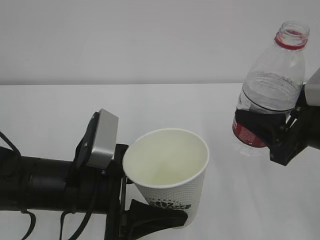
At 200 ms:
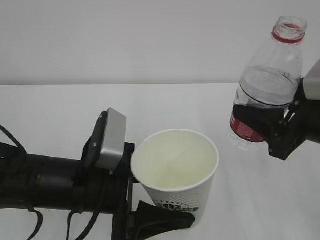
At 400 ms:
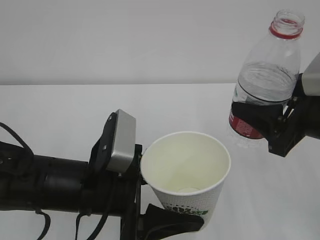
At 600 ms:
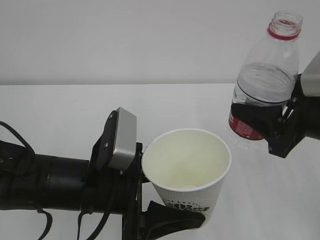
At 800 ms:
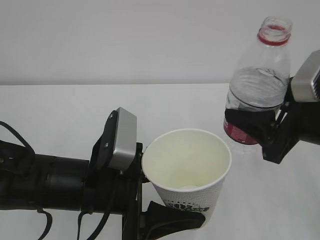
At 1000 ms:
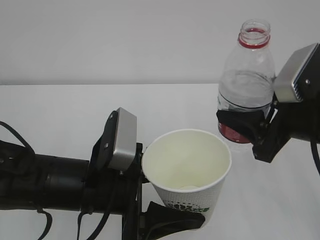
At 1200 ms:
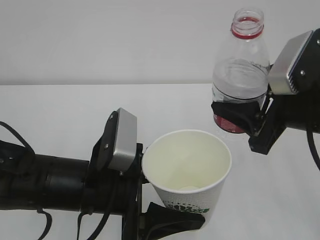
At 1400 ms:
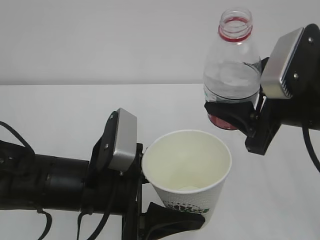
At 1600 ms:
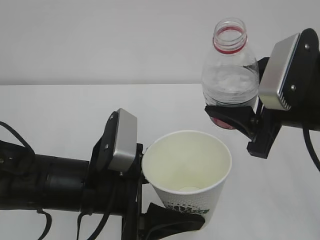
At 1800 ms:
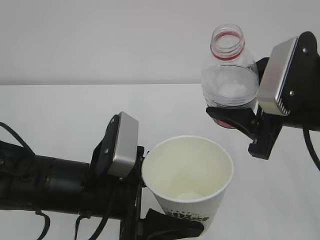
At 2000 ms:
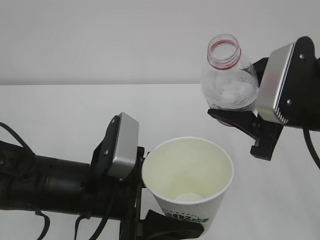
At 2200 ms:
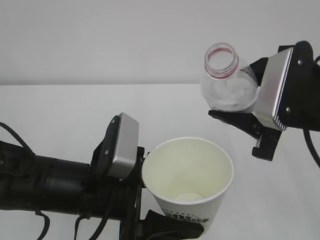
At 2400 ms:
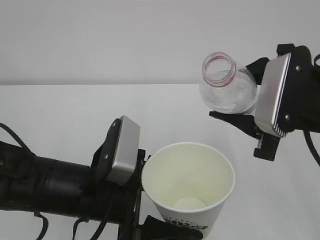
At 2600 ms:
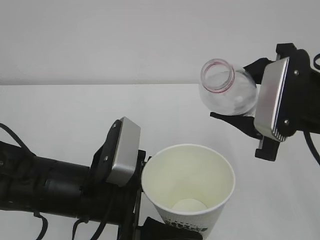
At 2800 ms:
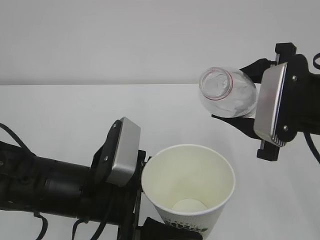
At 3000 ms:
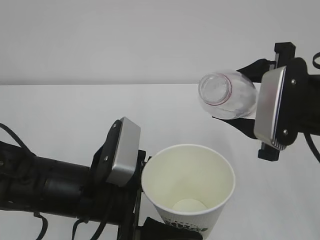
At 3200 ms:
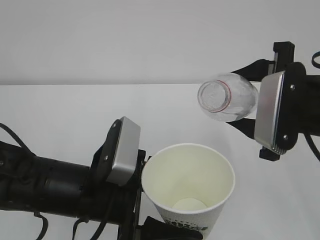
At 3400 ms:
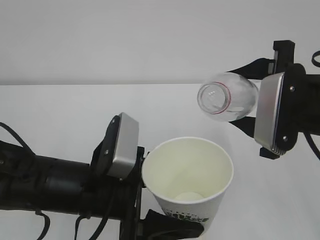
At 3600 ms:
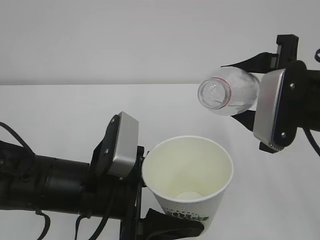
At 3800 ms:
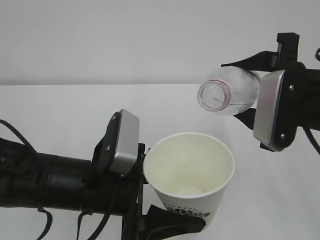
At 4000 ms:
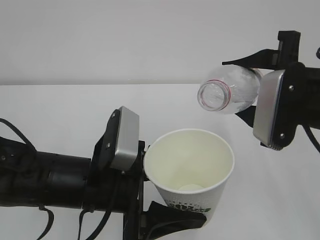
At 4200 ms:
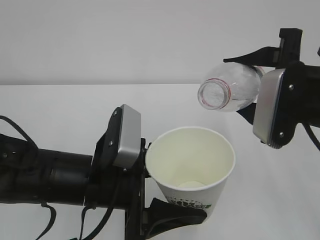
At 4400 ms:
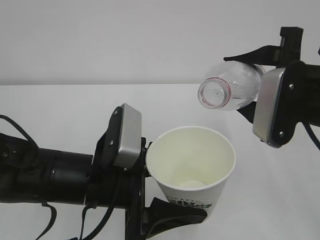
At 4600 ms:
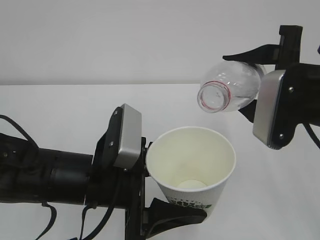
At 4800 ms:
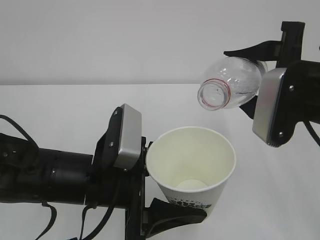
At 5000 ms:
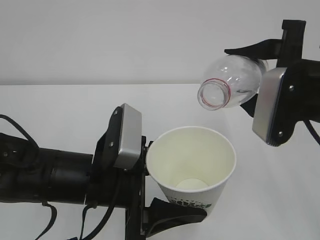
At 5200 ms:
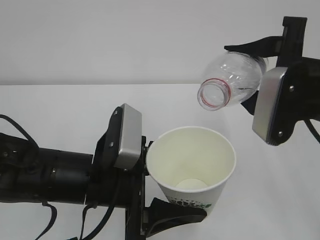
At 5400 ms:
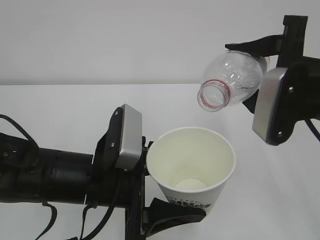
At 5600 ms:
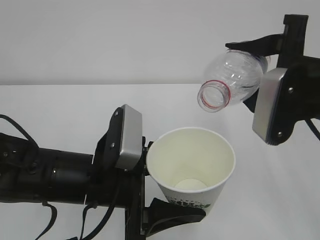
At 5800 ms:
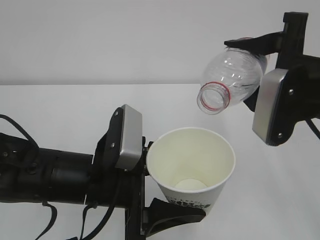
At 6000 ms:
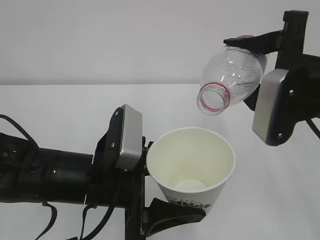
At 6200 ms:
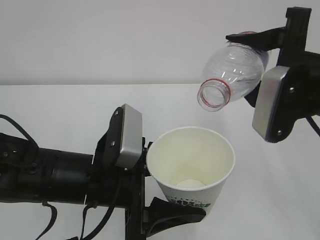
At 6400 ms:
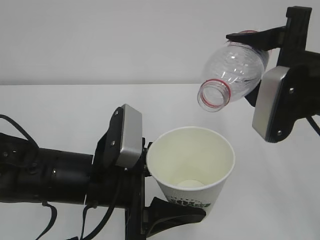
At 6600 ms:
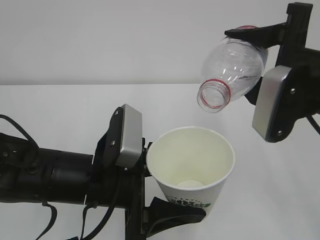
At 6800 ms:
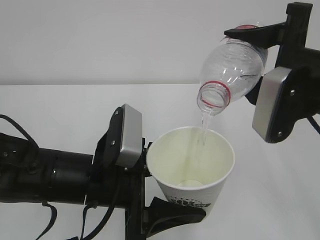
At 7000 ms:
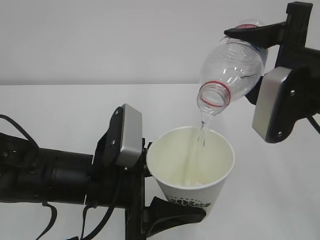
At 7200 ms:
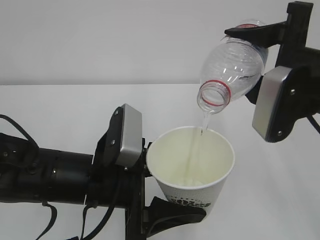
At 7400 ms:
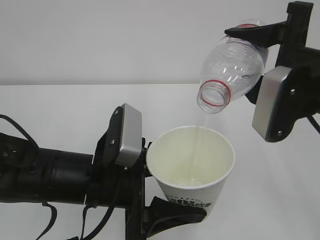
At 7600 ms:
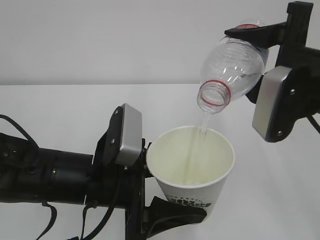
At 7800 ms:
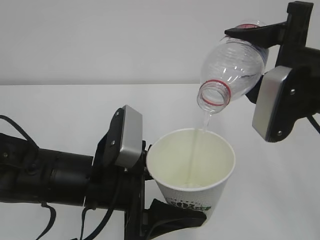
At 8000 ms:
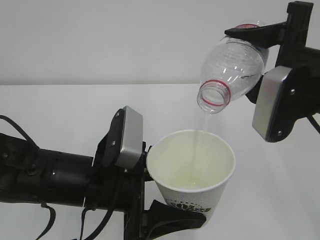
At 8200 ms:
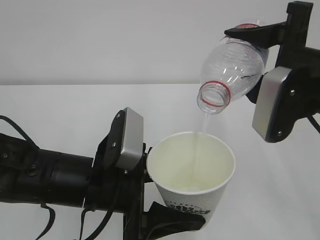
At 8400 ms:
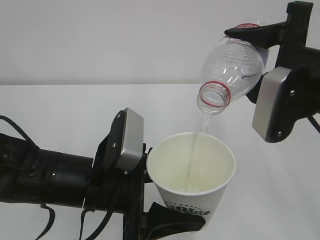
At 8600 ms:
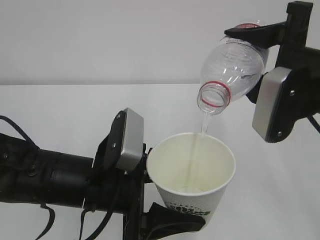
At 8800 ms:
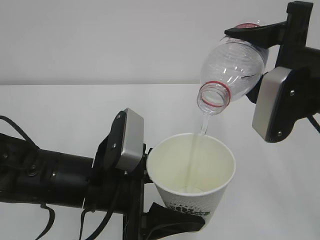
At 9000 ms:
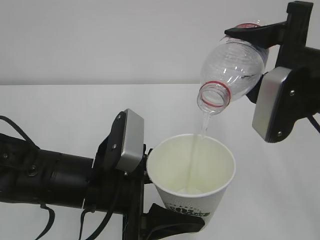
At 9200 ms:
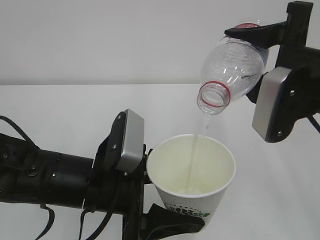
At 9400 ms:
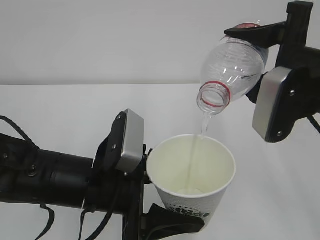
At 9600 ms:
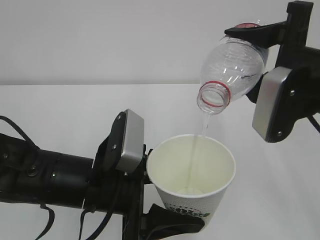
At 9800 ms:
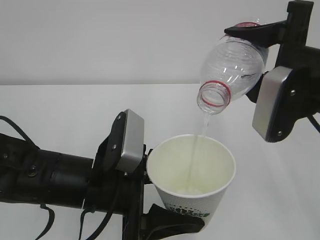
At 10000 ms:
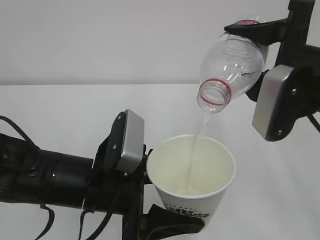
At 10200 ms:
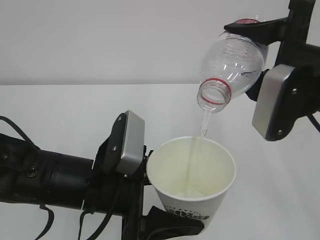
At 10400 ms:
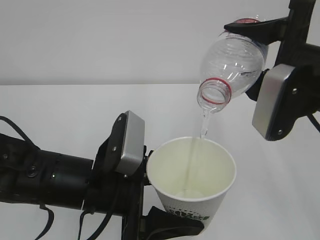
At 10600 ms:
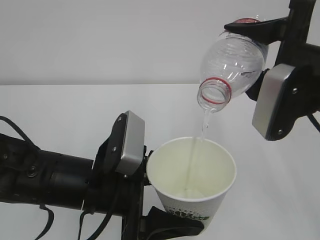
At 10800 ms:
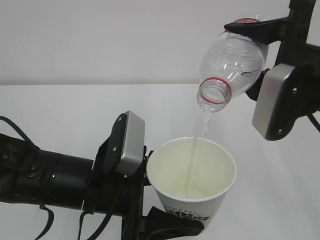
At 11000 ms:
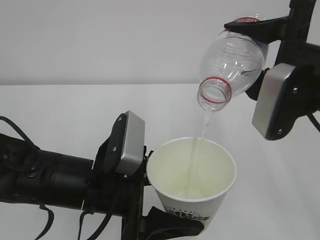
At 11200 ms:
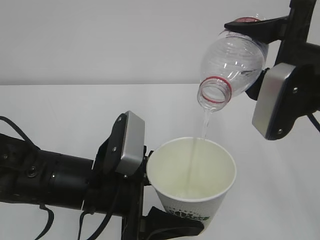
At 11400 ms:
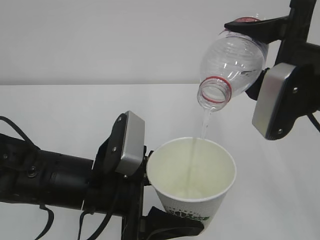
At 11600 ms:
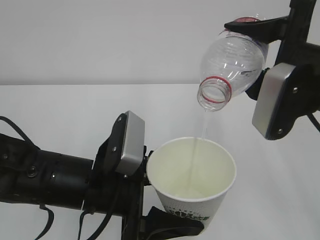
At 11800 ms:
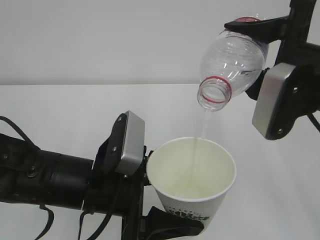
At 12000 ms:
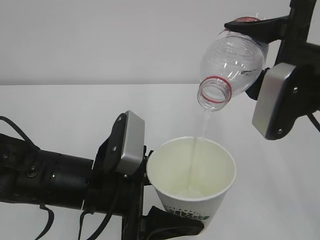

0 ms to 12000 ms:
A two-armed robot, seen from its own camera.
0 ms to 1600 ms: The right gripper changes place by approximately 5 cm.
3000 ms to 4400 ms: The grippers move only a little.
4400 ms to 6000 ms: There are only small adjustments of the grippers.
6000 ms to 7600 ms: Both grippers stay put.
7600 ms to 12000 ms: Both grippers stay put.

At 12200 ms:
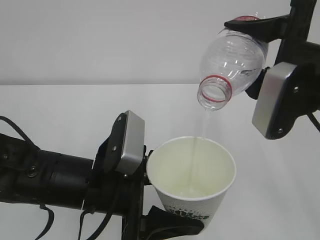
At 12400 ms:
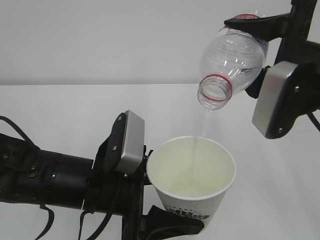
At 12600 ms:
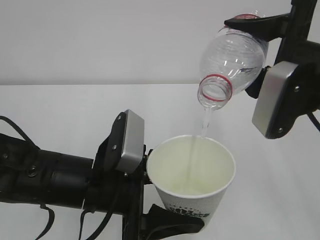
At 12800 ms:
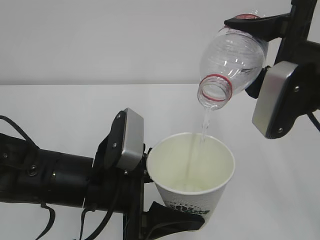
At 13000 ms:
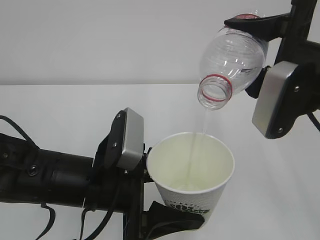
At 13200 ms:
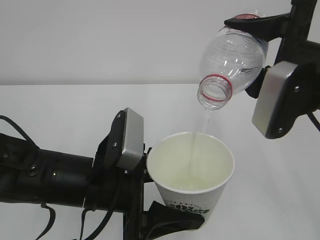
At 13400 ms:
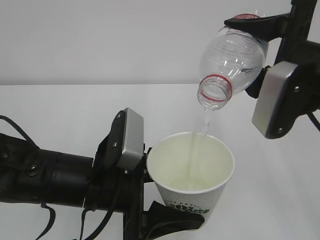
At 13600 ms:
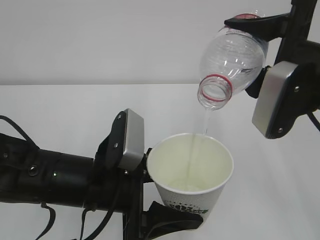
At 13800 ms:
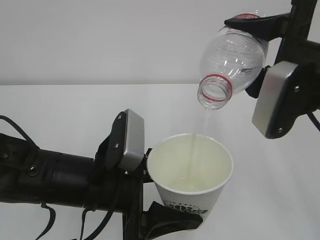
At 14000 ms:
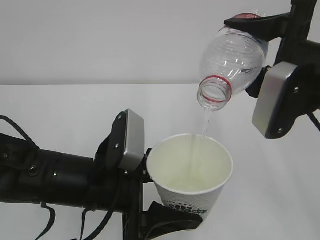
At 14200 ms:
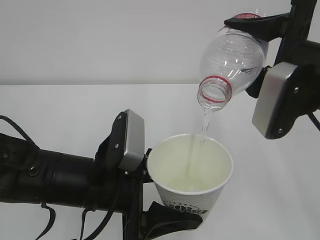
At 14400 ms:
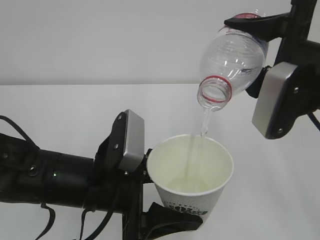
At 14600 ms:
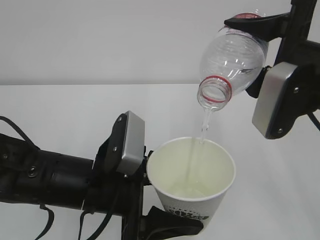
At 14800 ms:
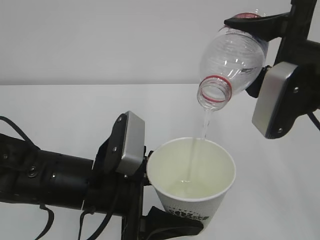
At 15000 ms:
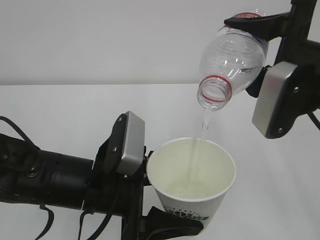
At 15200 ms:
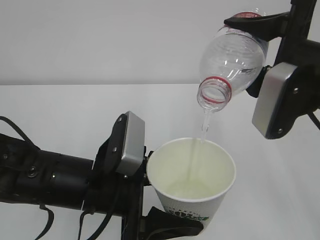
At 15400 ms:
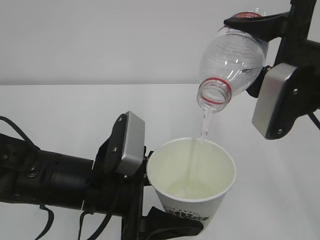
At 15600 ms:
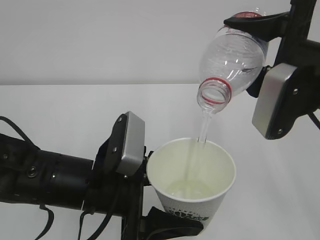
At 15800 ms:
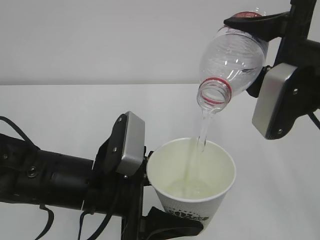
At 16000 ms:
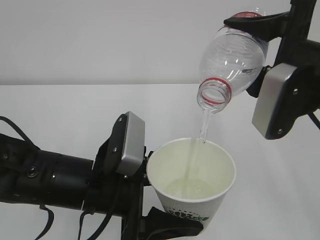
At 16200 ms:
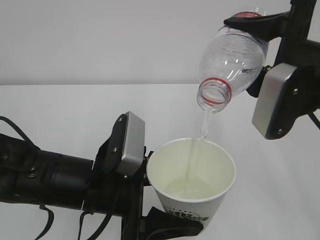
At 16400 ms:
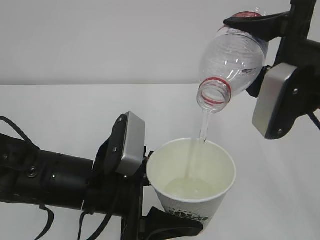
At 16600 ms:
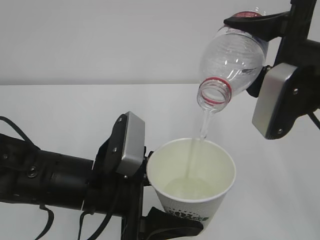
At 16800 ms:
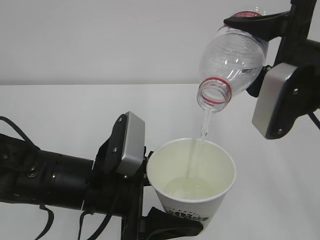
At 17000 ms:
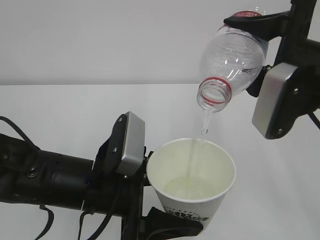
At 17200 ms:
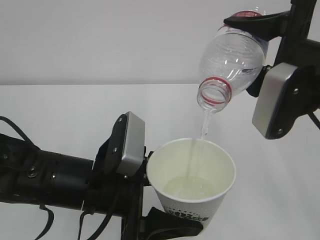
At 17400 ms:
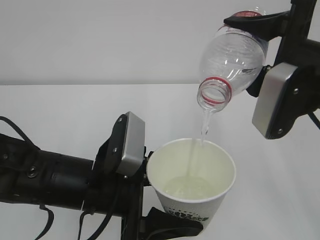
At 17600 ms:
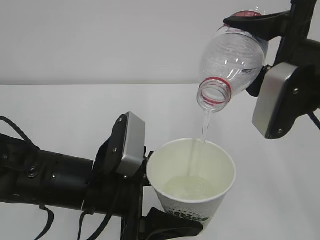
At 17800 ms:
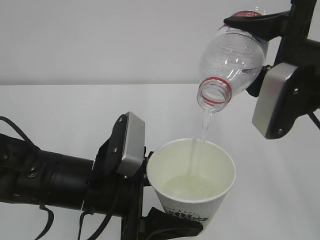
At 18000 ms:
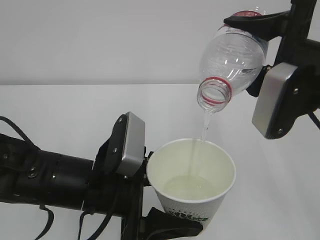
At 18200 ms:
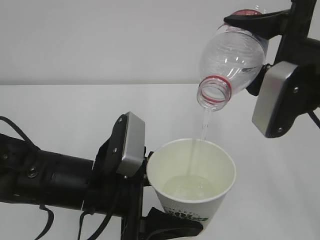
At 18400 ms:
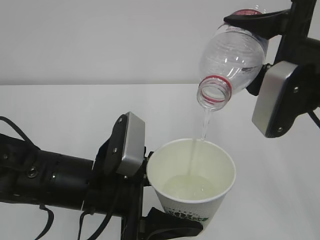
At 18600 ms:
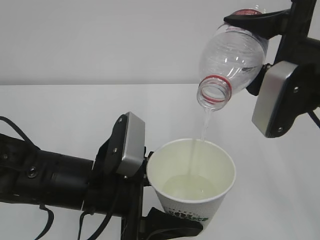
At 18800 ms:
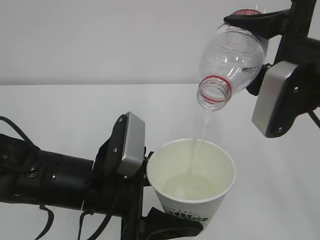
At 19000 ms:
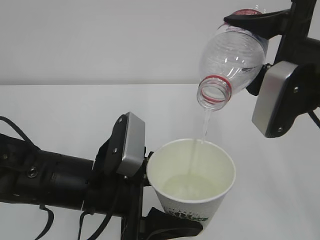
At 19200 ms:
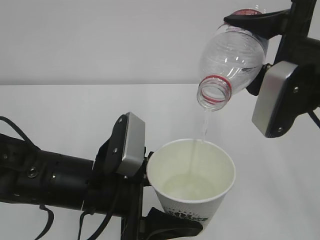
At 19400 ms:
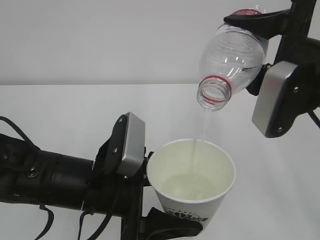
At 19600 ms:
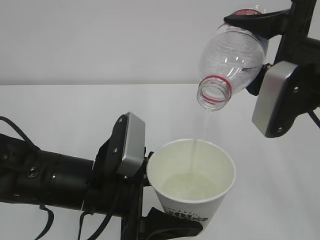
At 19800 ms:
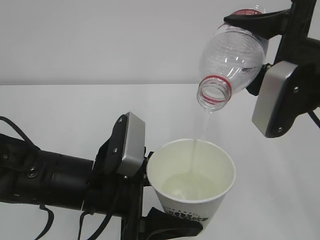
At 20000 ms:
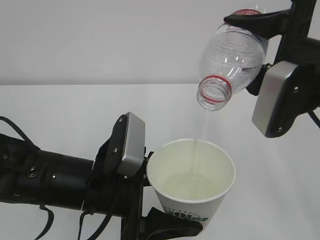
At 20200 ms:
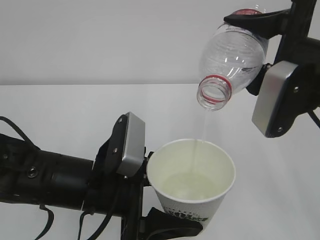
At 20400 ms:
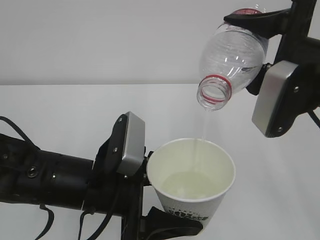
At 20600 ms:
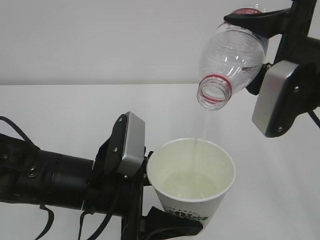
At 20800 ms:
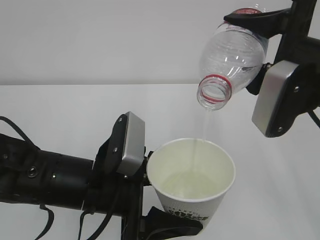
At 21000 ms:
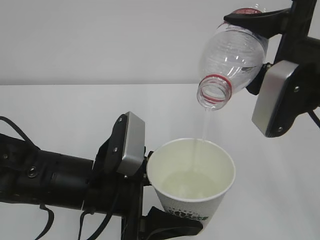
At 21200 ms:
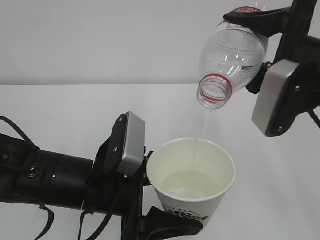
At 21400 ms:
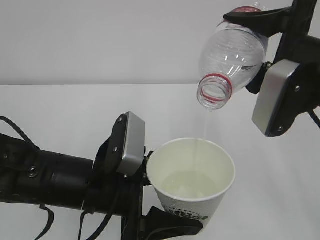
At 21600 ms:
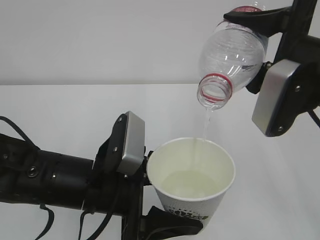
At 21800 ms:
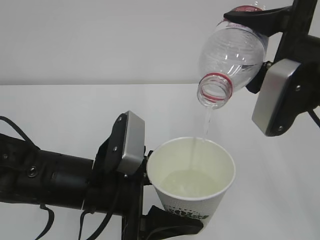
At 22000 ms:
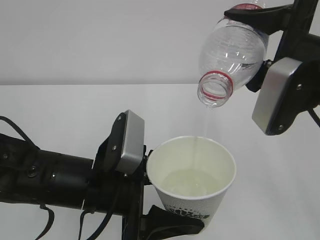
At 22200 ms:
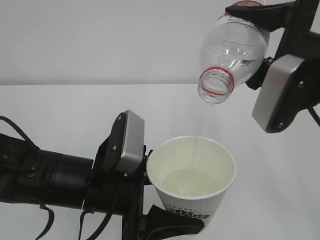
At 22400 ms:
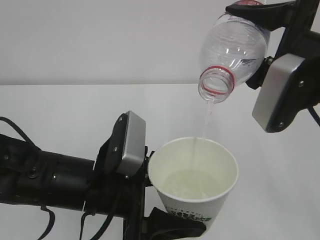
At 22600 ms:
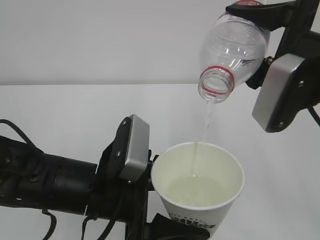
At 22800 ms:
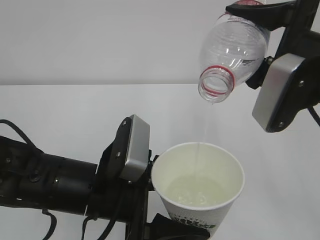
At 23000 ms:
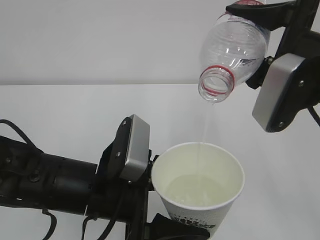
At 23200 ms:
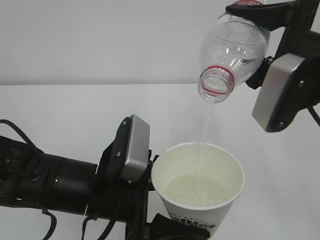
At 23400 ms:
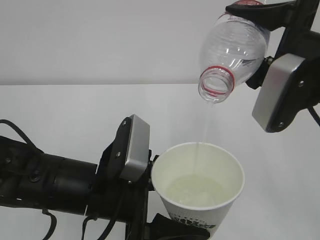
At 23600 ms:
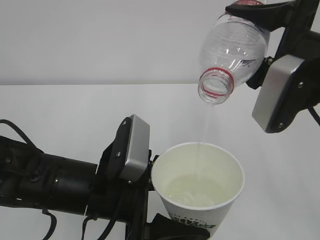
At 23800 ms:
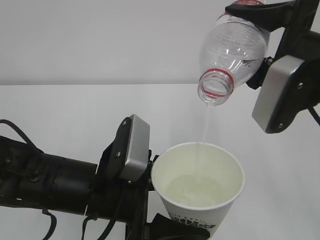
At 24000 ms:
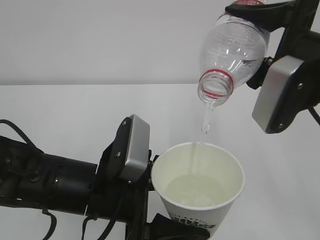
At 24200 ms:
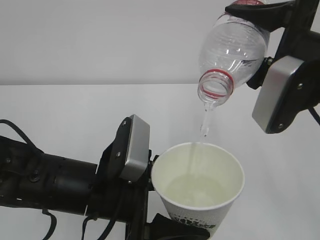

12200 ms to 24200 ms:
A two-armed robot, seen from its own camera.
12200 ms to 21200 ms: Both grippers stay about where they are.
21200 ms to 24200 ms: Both grippers stay about where they are.
